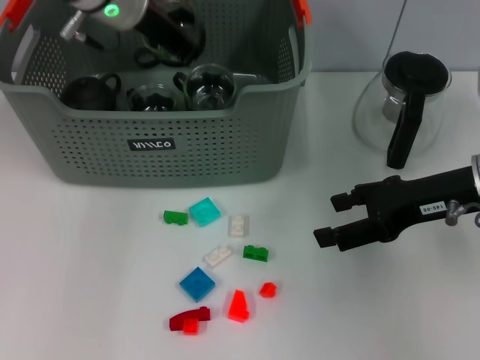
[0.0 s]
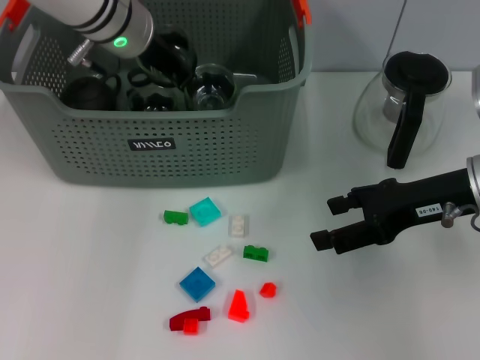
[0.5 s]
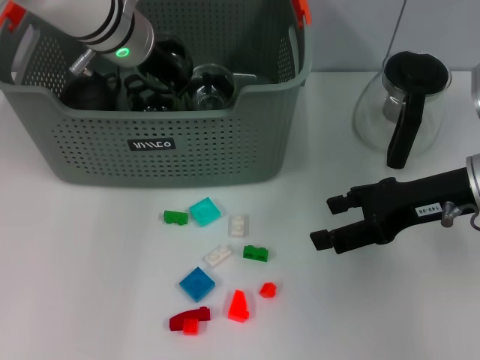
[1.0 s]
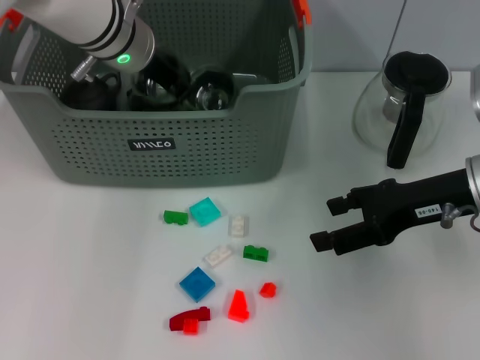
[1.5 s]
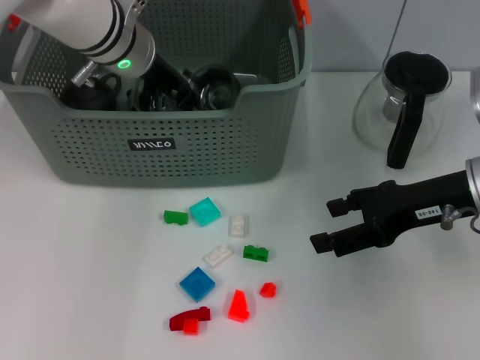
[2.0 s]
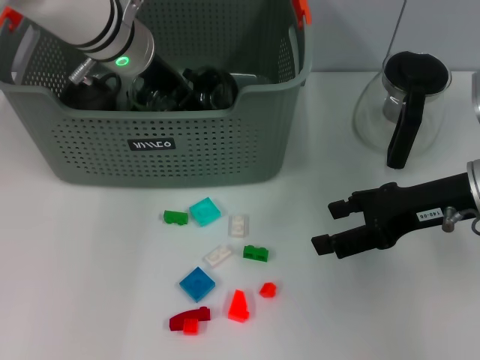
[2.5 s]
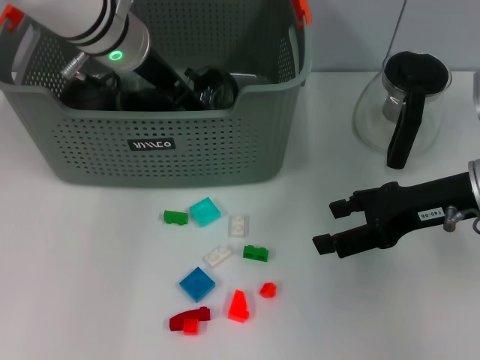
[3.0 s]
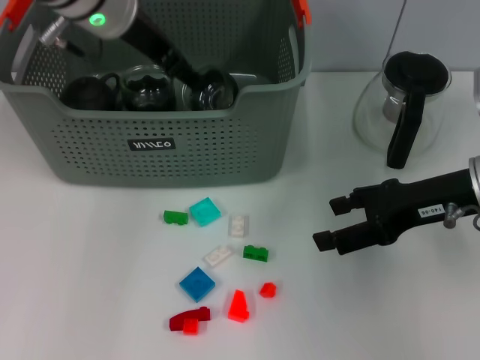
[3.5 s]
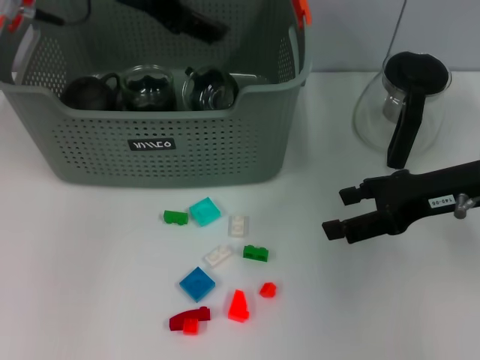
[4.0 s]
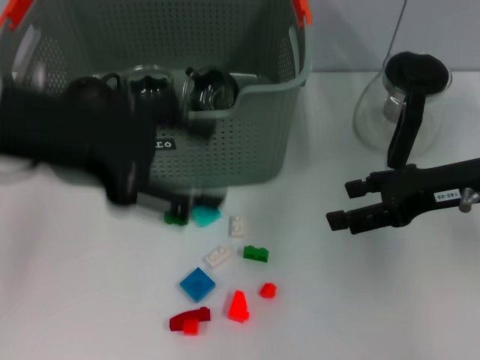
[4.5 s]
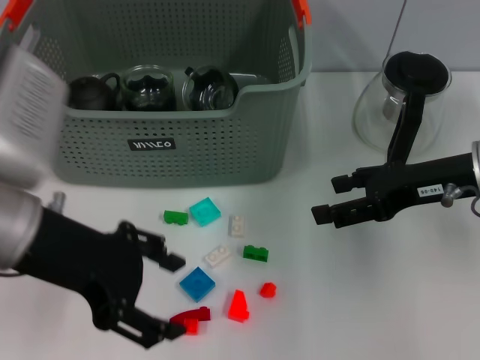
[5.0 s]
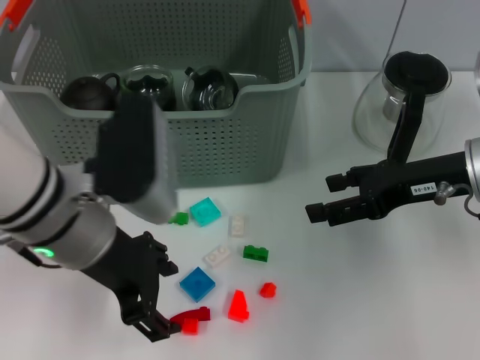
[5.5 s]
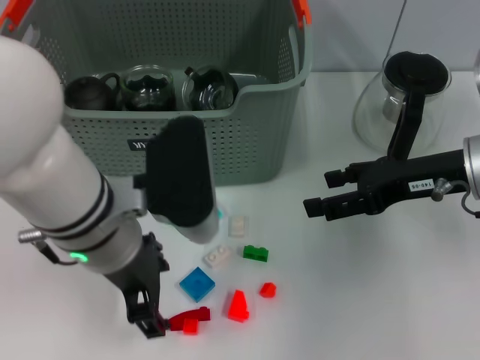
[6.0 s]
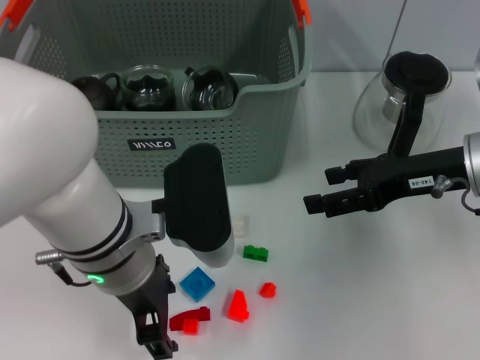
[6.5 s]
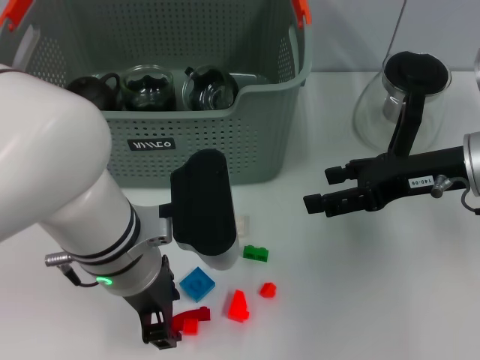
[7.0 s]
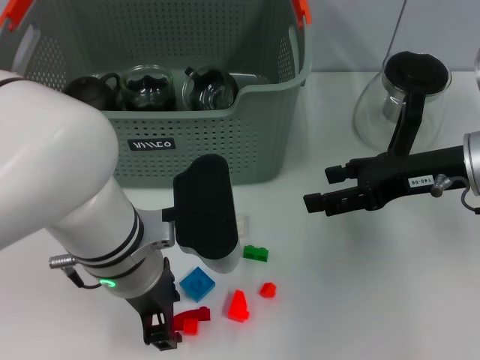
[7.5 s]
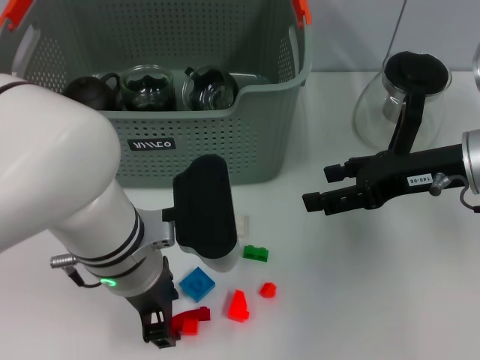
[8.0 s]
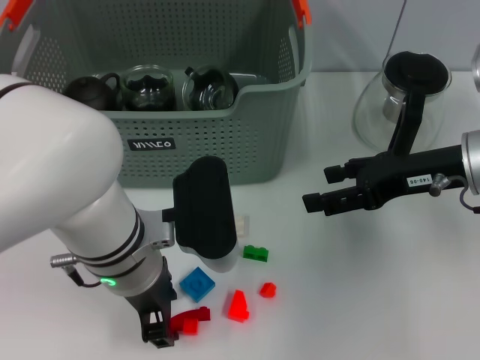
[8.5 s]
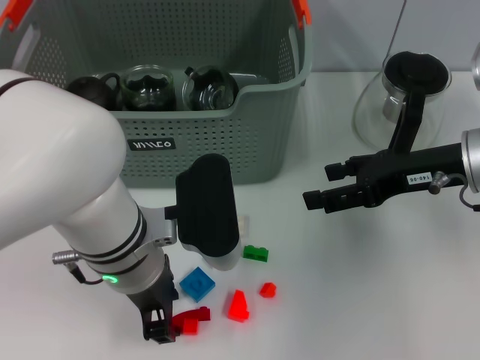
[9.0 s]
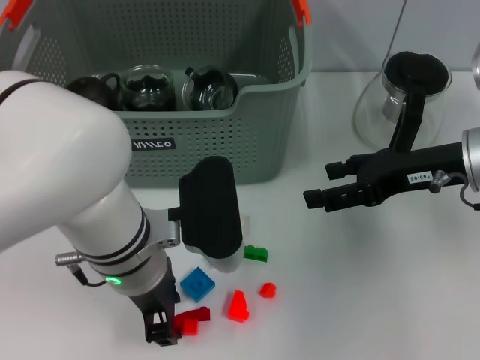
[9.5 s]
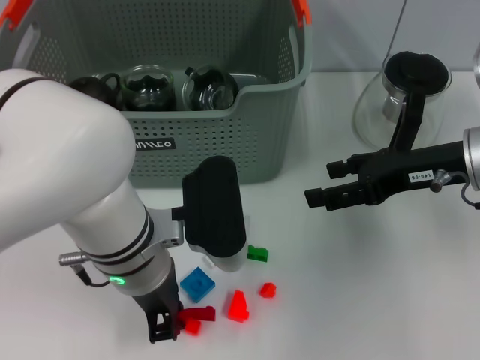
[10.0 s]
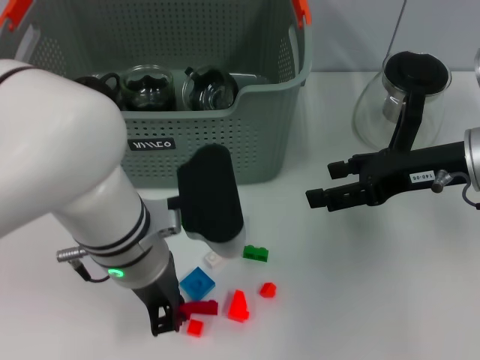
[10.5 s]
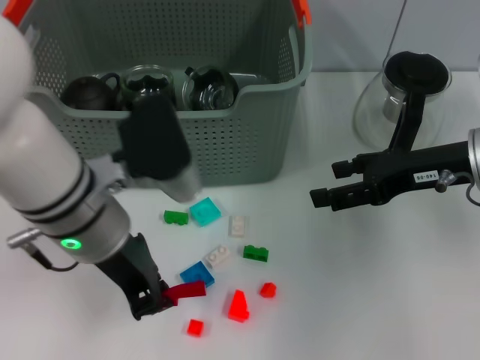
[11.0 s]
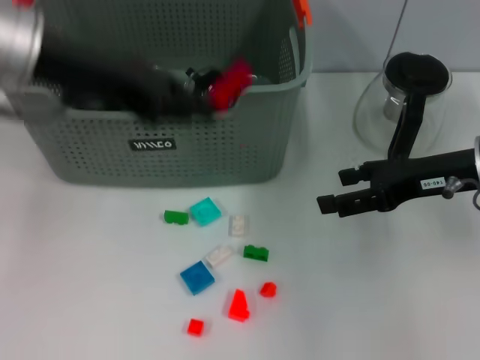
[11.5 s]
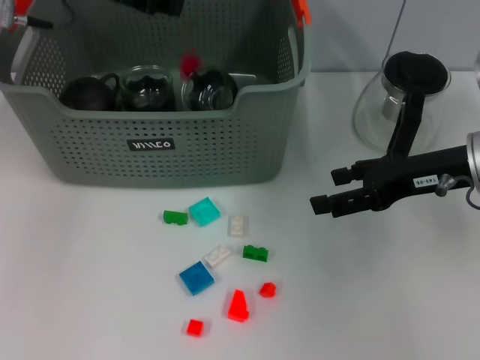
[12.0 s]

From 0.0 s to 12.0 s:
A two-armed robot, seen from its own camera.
Task of the whole recording: pick up the teacup on the table and place it into the storage bin, pick up the block on the table and place it into the storage bin.
Step, from 4.0 s to 10.0 s: Grasp the red block with left gripper.
From 0.0 s to 2.0 s: The left gripper shifts by approximately 5 cm.
From 2.0 s to 4.0 s: The left gripper shifts roughly 15 cm upward and backward, and opens its fingers.
From 4.0 s to 6.0 s: The left gripper shifts approximately 20 cm downward and backward.
From 8.0 s to 10.0 s: The two grippers keep their place.
From 10.0 s to 12.0 s: The left gripper travels forward, upward and to the left by about 25 cm.

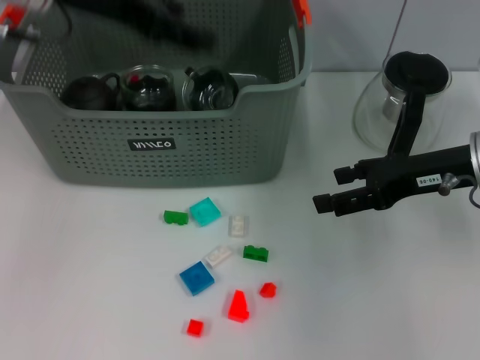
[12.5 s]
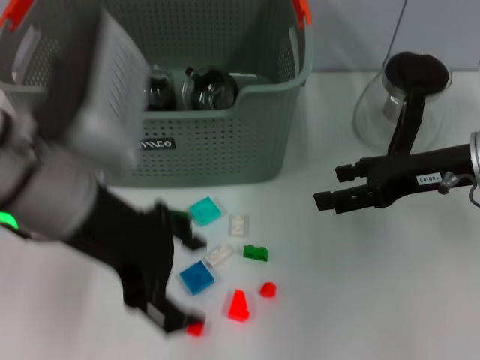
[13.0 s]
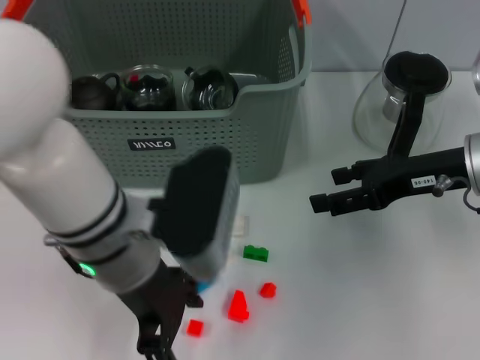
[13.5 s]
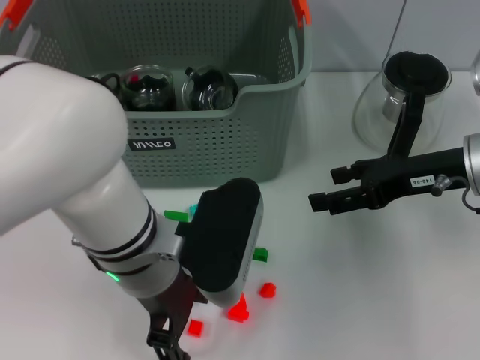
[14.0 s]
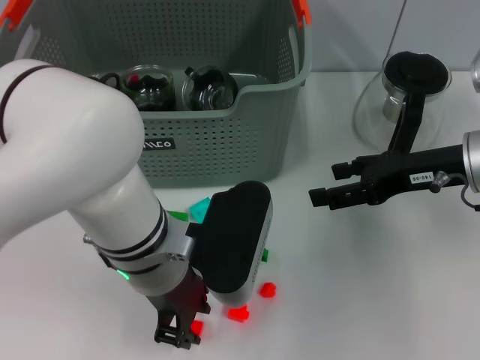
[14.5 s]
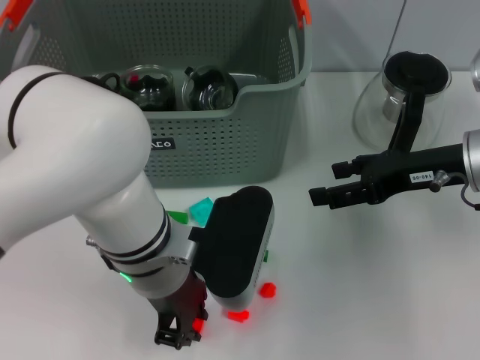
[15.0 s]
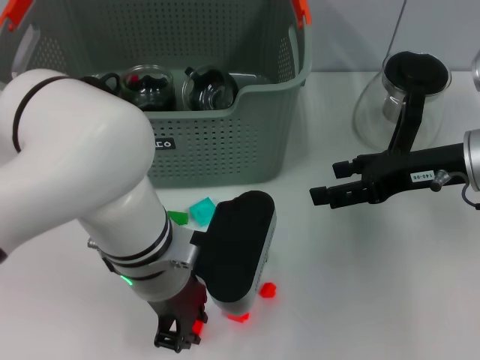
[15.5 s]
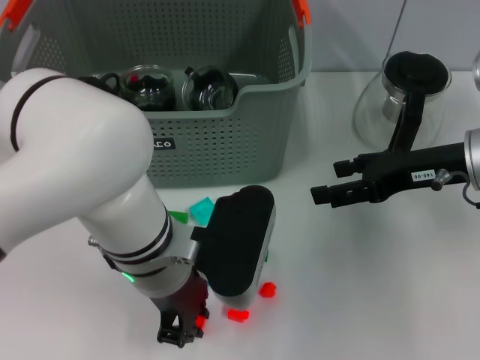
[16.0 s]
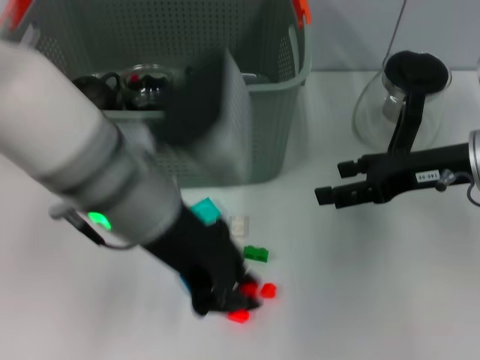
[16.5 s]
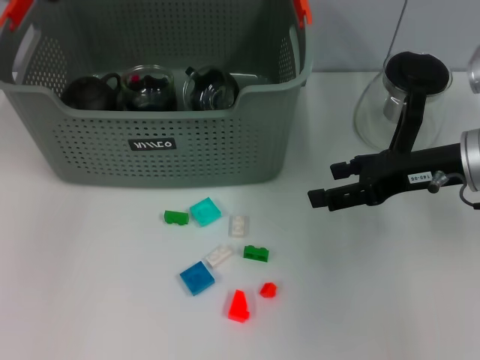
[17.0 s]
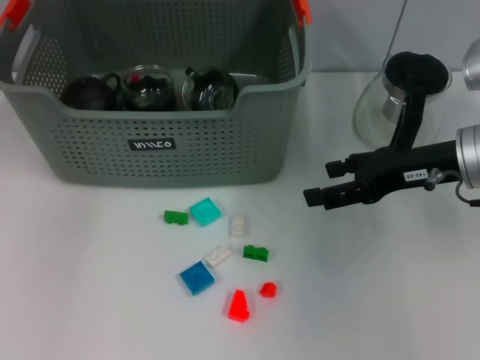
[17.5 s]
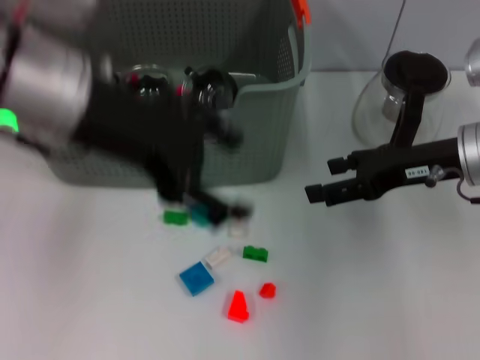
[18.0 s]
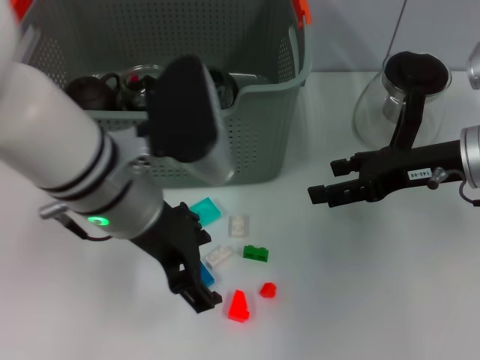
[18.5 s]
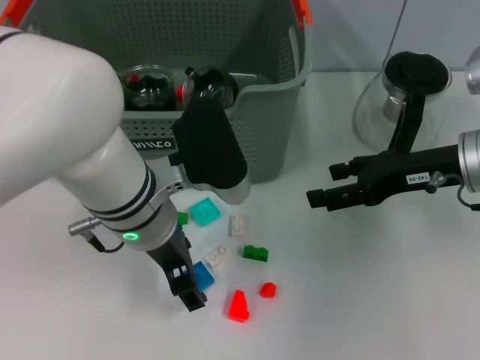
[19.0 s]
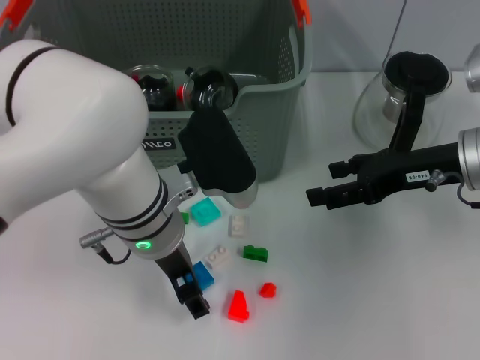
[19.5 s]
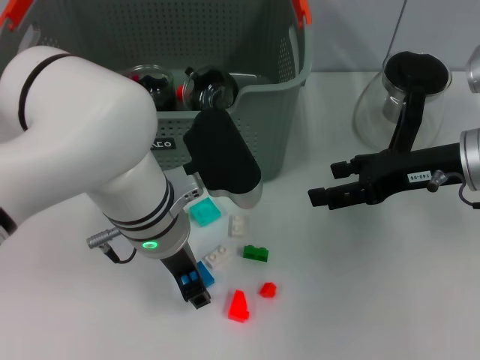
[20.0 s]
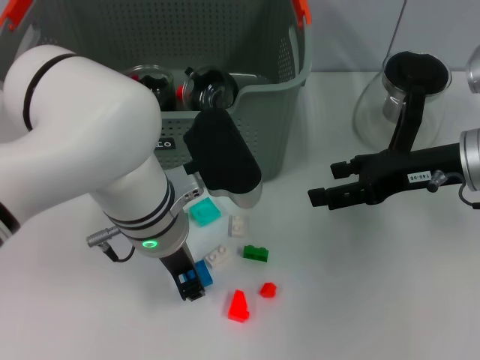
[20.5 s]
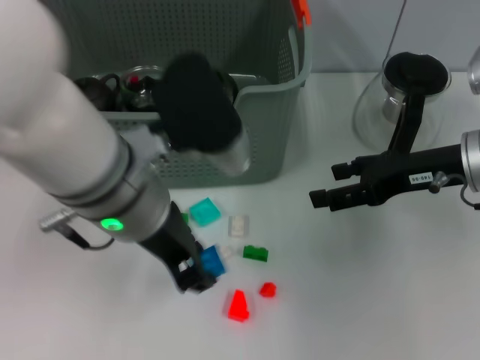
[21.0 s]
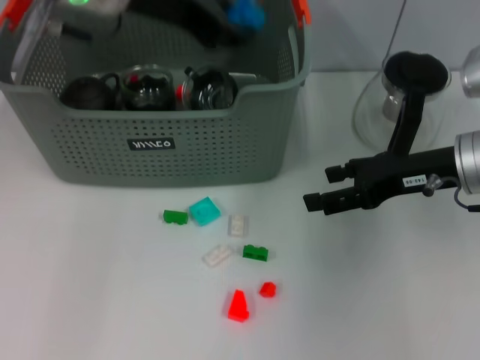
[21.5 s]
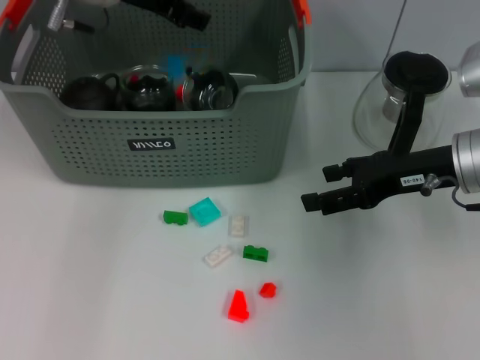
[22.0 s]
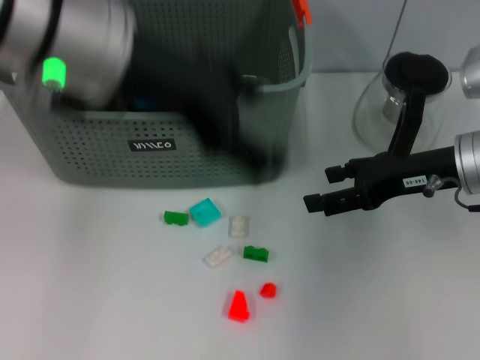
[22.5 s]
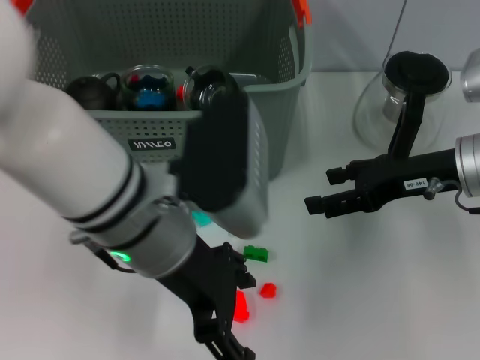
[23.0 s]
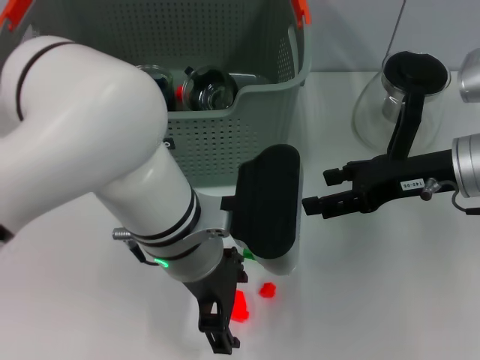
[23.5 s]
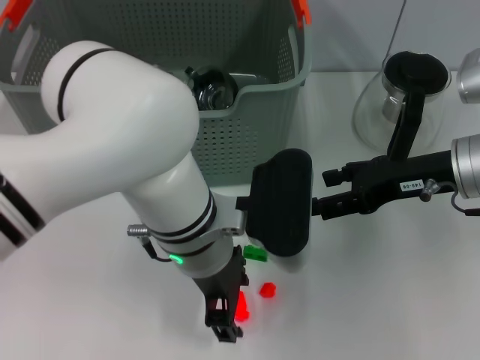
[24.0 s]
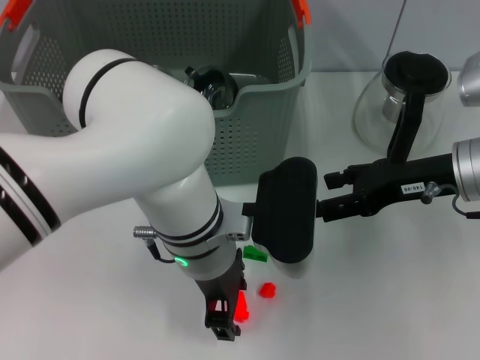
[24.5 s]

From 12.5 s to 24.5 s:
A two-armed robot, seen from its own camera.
Task of the whole recording: pick up the teacup on the table and place it into the storage bin, pick up the block on the table and place it into the storage bin.
Step, from 12.5 s to 15.0 s: Grasp the orange block with left gripper.
Step, from 15.5 s to 17.5 s: Place the orange block in the storage box with left gripper.
Step, from 18.0 s to 20.0 s: Grasp the dark blue block with left gripper.
Step, from 21.0 s to 22.0 s: Place the dark blue block in the storage box with left gripper.
From 12.5 s to 14.5 s: The left gripper travels downward, backward and to the right by approximately 25 cm, and opens, then closes once more.
From 14.5 s to 16.5 s: The left gripper moves upward, approximately 10 cm, and closes up.
From 16.5 s to 18.5 s: The left gripper reaches approximately 15 cm forward, then returns, and opens.
From 18.5 s to 20.5 s: The left gripper heads downward, covering approximately 5 cm, and closes its fingers.
From 20.5 s to 22.5 s: The left gripper heads upward, covering approximately 15 cm, and opens up.
From 22.5 s to 24.5 s: The left gripper travels downward and to the right by some 20 cm.

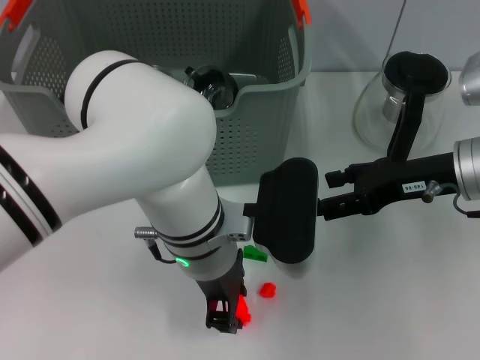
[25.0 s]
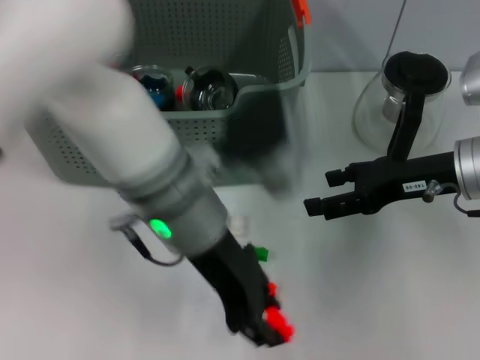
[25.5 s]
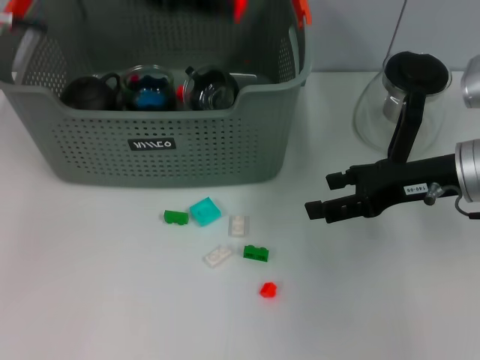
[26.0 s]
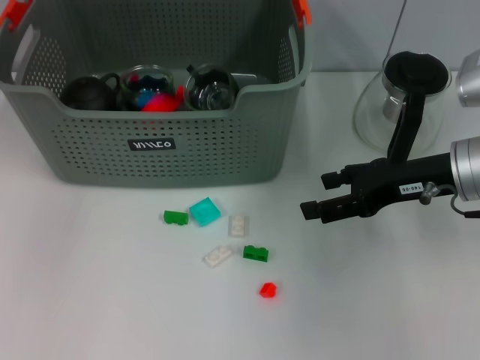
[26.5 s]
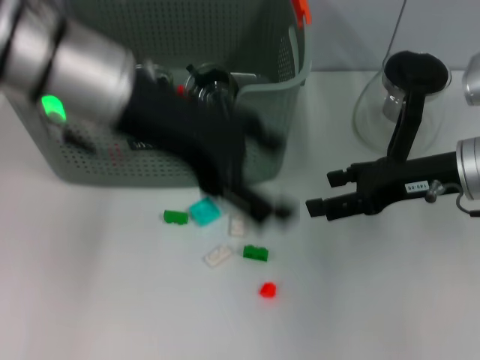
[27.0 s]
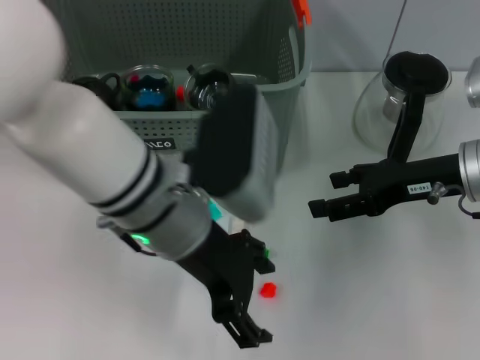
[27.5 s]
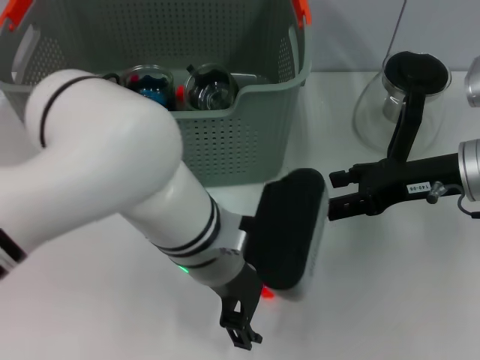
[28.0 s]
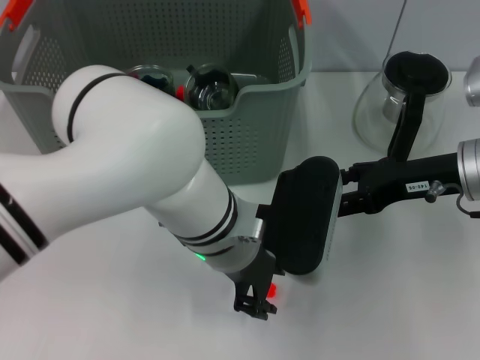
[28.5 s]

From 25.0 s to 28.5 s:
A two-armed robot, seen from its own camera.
Task of the whole recording: pick up the teacup on the table and place it into the storage bin, pick up the block on the table and place it into the storage bin.
Step, from 25.5 s to 26.5 s: Place the orange block in the storage box with left gripper.
From 25.0 s to 27.0 s: The left gripper moves upward and to the left, about 15 cm, and opens.
From 27.0 s to 28.5 s: The left gripper travels downward and to the right by roughly 15 cm.
